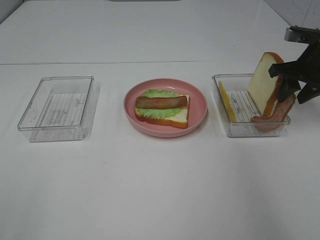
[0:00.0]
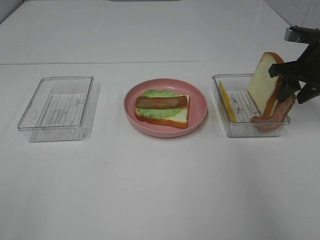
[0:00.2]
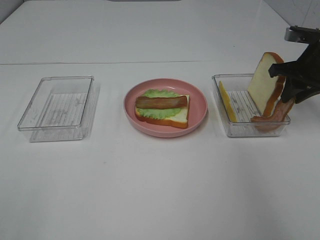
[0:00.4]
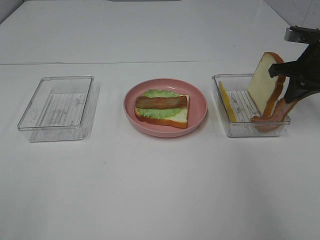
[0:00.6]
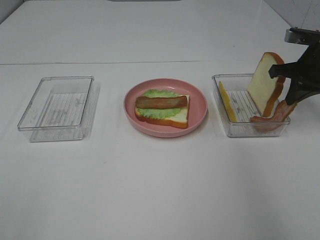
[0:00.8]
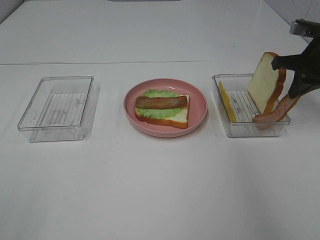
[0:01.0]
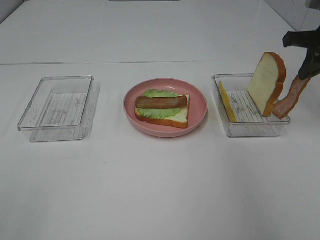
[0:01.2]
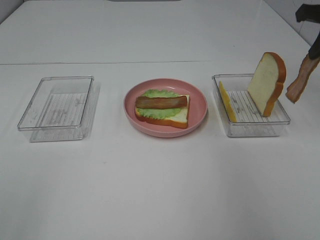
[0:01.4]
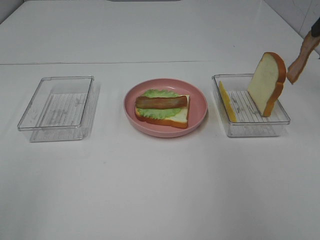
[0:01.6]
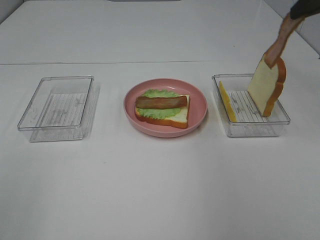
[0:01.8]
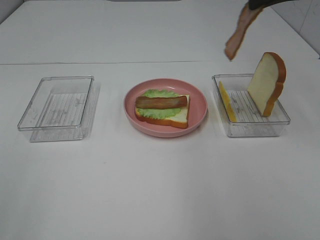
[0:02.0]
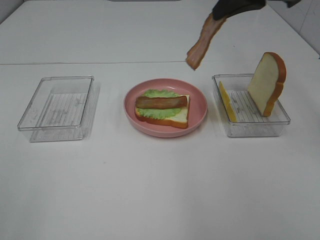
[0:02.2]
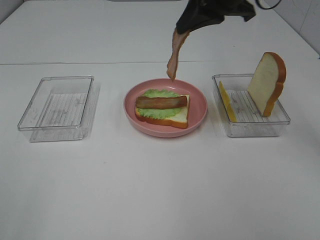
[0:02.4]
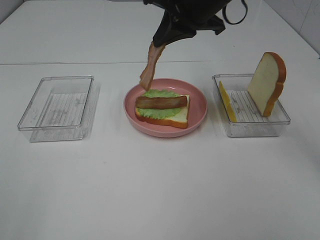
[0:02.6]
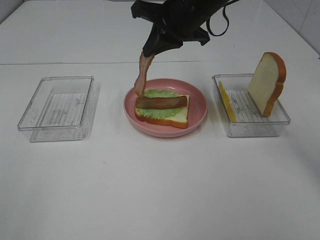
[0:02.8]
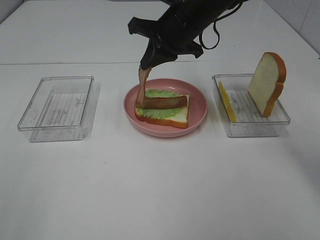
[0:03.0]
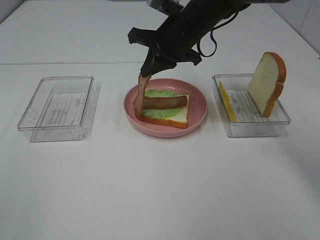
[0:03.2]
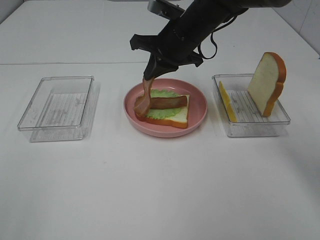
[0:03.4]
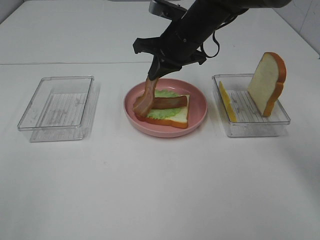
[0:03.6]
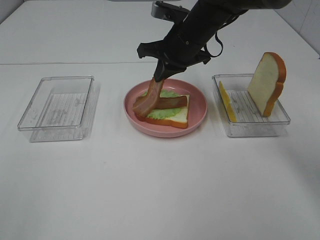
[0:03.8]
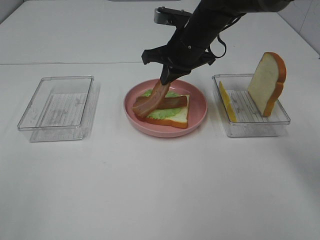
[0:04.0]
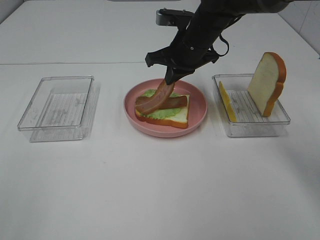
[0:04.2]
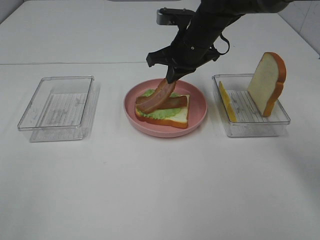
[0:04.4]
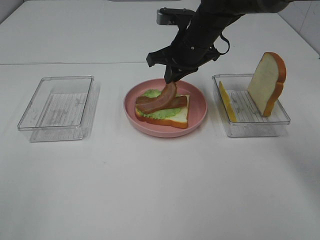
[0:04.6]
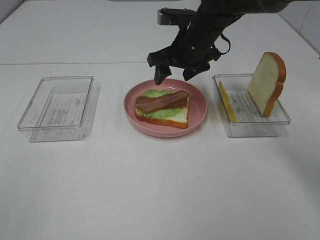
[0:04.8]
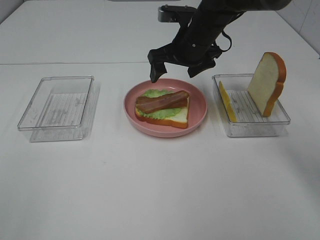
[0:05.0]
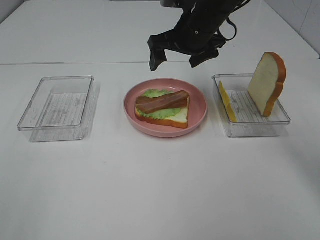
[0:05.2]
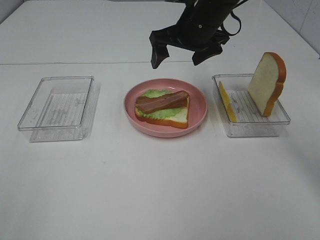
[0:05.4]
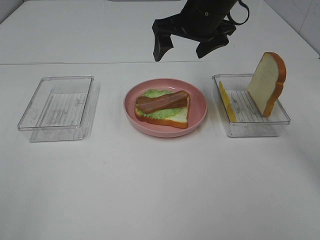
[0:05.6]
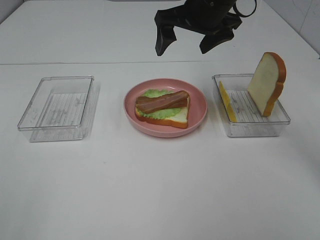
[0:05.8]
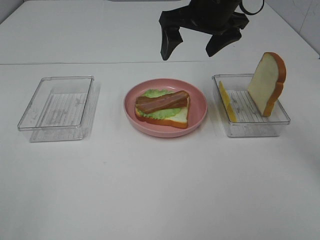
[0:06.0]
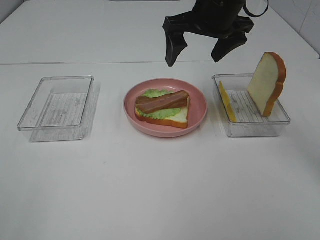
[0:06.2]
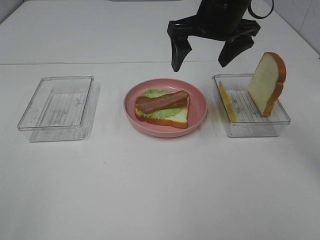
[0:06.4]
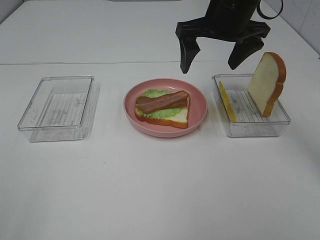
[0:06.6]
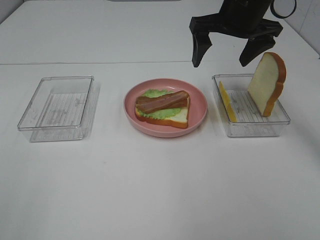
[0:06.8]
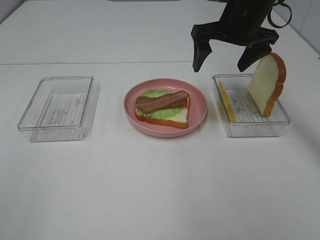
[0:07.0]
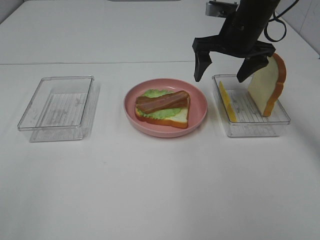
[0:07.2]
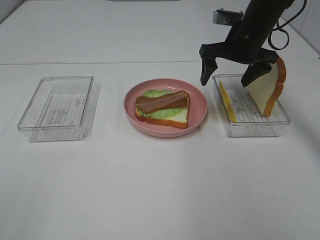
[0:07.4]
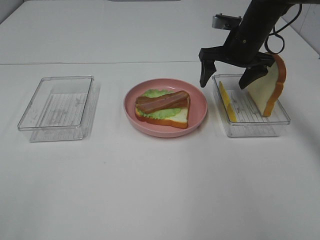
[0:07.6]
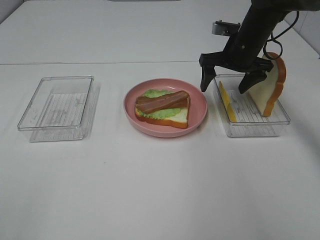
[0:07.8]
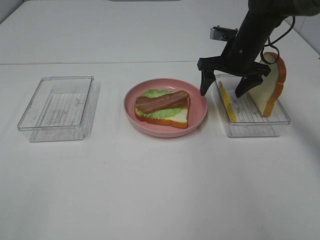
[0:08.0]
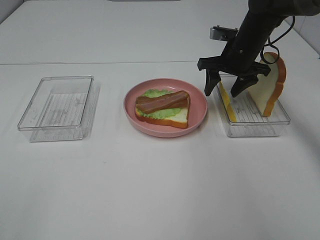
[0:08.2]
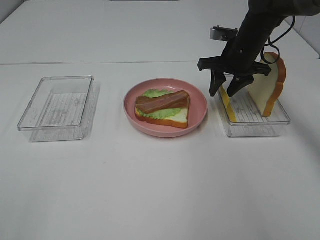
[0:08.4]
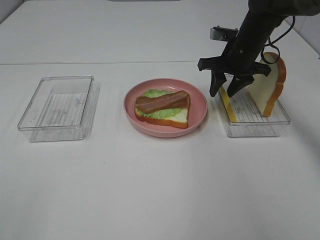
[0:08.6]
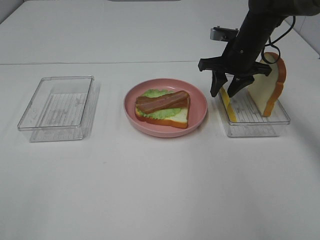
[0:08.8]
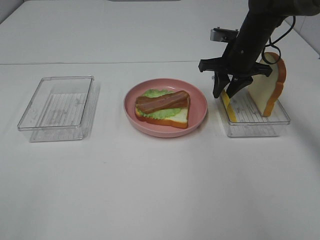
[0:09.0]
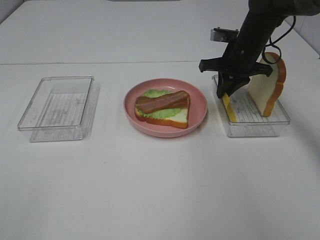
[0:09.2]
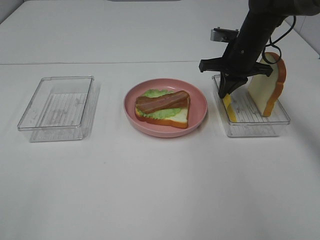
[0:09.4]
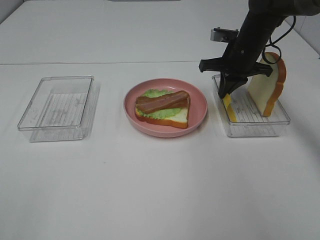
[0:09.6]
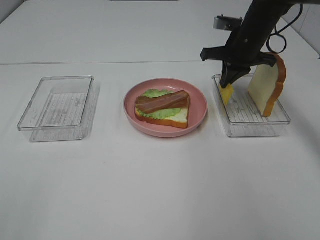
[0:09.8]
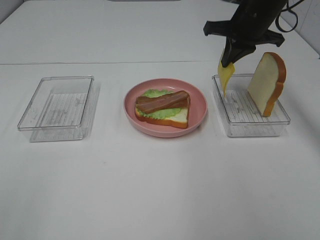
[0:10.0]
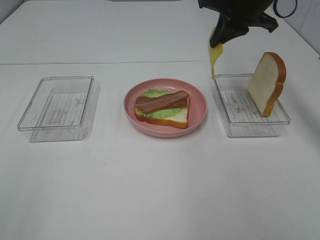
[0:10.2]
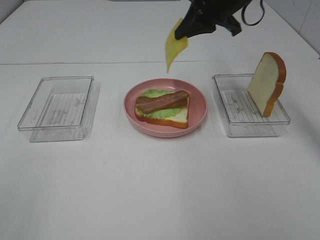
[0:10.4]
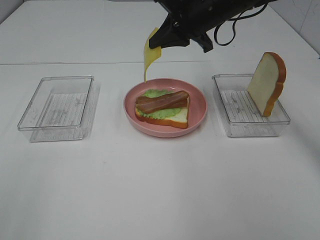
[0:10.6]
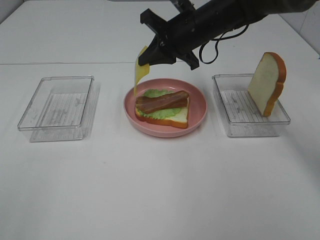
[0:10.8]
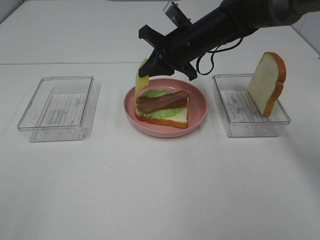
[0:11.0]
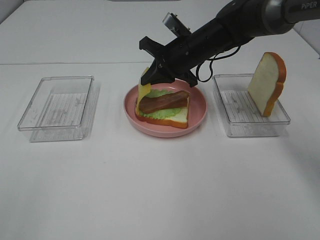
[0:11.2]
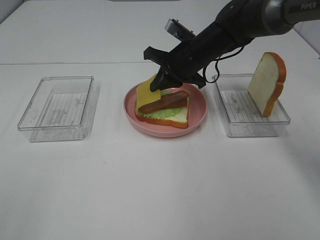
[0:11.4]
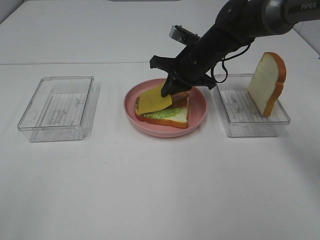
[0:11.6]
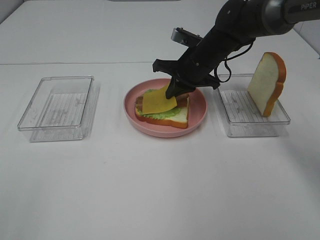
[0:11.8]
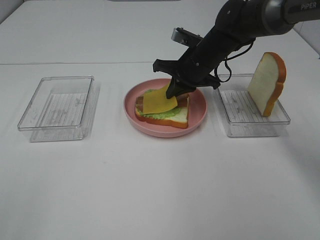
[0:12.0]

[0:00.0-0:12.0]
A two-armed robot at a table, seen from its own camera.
Task of the whole recording: Make sandwiches.
Step, 0:01.0 to 0:04.8: Right hand:place bacon on bacon.
Step, 0:05.0 to 0:09.6: Right hand:grab the cheese slice.
0:00.0 to 0:01.6: The right gripper moves upward and backward, roughly 15 cm, and closes.
0:01.6 to 0:03.0: The right gripper moves to the left and downward, roughly 25 cm.
0:03.0 to 0:04.4: The grippers move only a little.
0:04.4 to 0:06.0: The right gripper moves upward, roughly 10 cm, and opens up.
0:06.0 to 0:07.6: The right gripper travels downward, to the right and forward by approximately 15 cm.
0:07.6 to 0:09.0: The right gripper closes up.
0:09.0 to 0:10.4: The right gripper moves upward and to the left, roughly 10 cm, and closes its fingers.
0:10.4 to 0:12.0: The right gripper is displaced downward by about 15 cm.

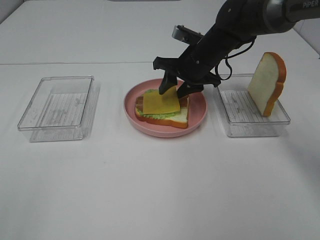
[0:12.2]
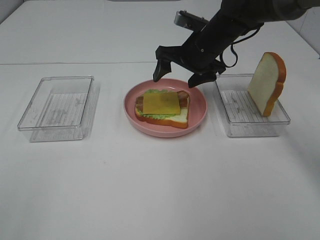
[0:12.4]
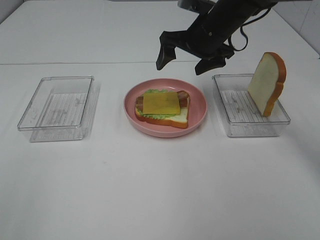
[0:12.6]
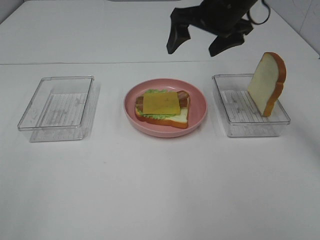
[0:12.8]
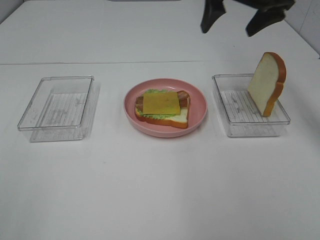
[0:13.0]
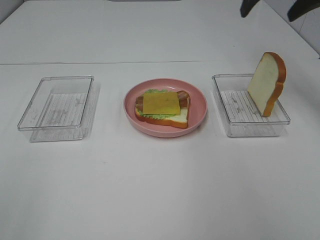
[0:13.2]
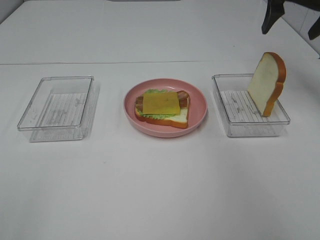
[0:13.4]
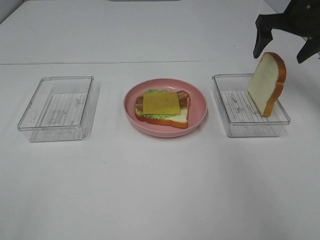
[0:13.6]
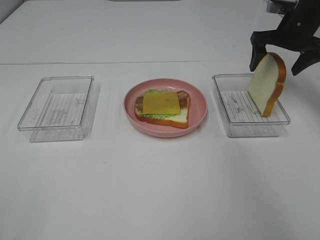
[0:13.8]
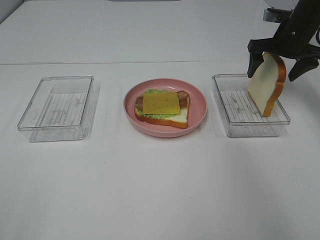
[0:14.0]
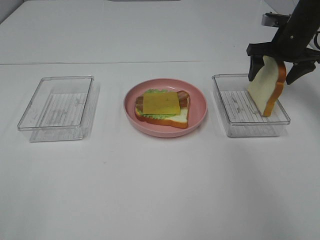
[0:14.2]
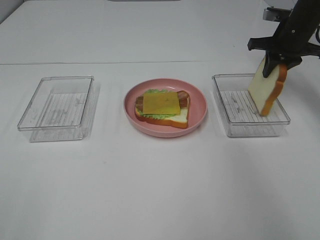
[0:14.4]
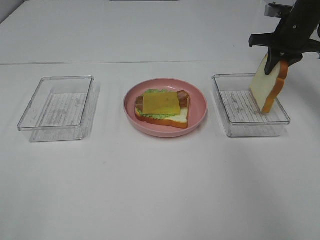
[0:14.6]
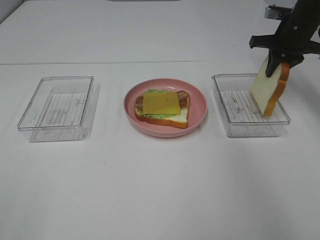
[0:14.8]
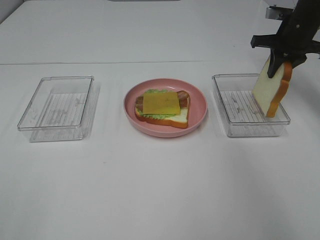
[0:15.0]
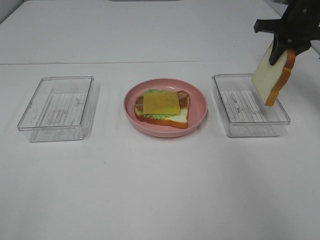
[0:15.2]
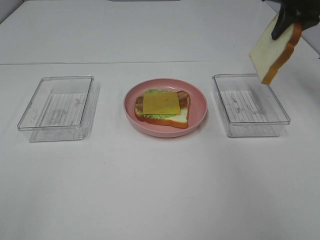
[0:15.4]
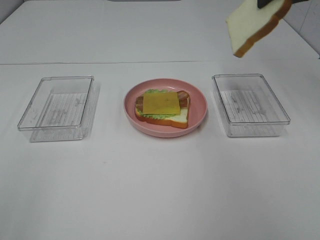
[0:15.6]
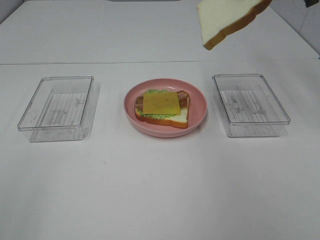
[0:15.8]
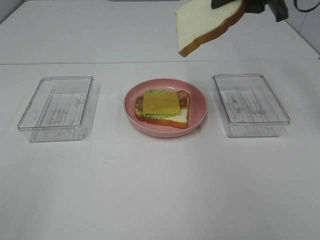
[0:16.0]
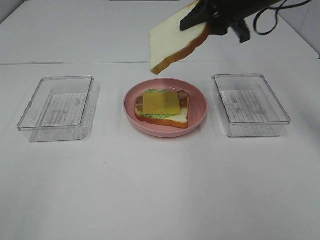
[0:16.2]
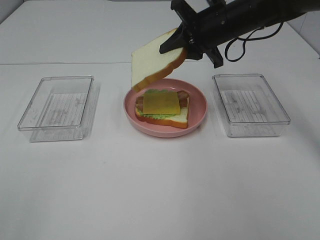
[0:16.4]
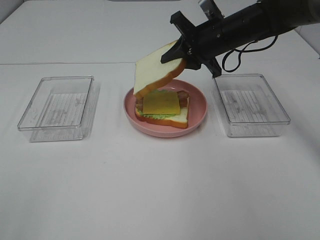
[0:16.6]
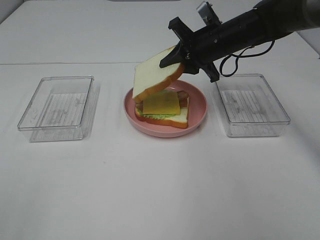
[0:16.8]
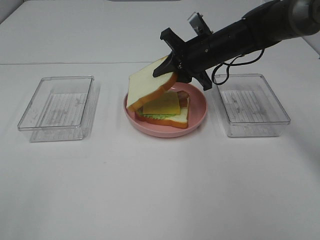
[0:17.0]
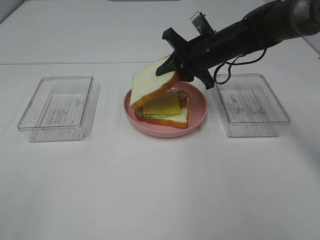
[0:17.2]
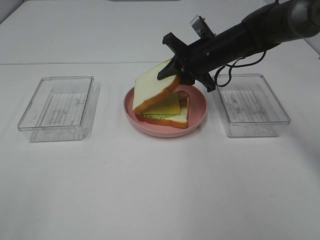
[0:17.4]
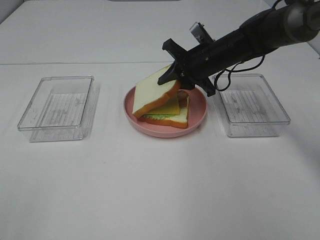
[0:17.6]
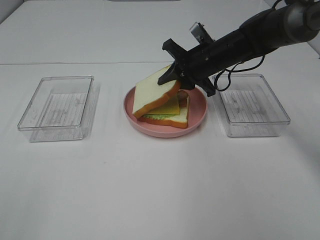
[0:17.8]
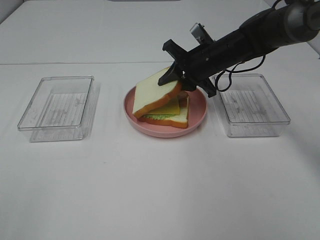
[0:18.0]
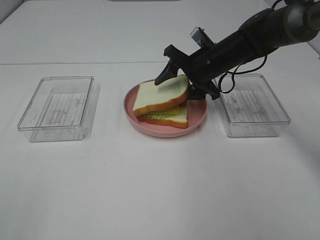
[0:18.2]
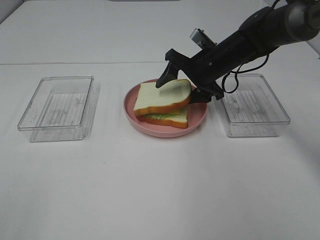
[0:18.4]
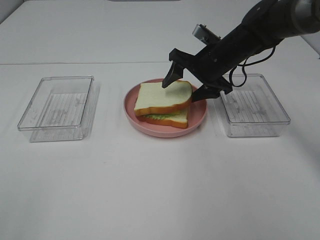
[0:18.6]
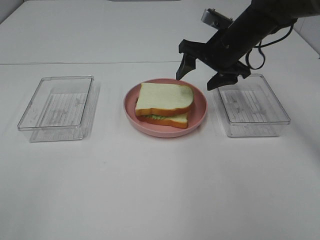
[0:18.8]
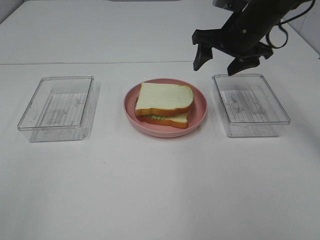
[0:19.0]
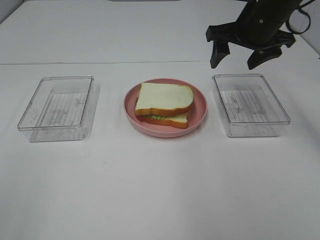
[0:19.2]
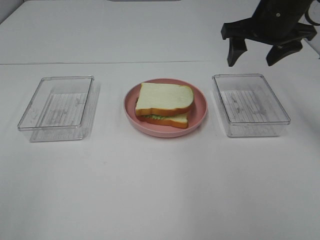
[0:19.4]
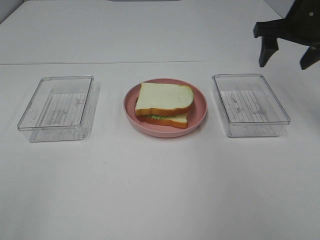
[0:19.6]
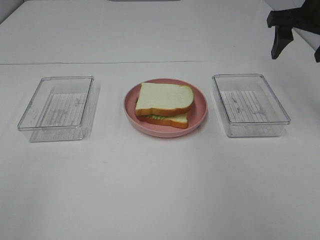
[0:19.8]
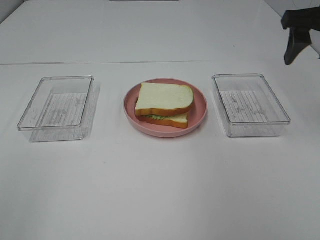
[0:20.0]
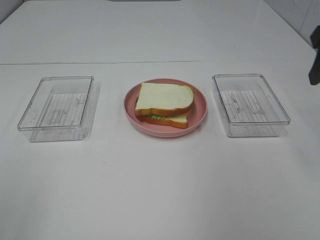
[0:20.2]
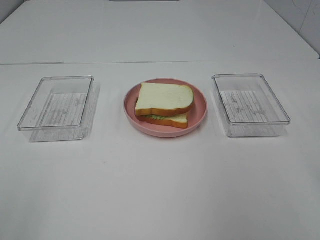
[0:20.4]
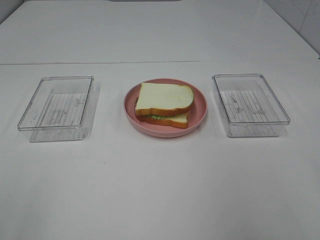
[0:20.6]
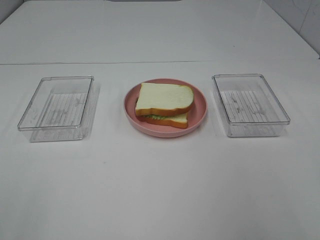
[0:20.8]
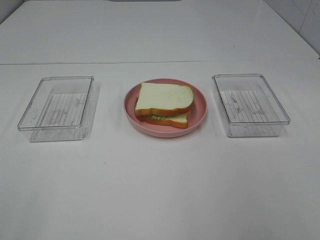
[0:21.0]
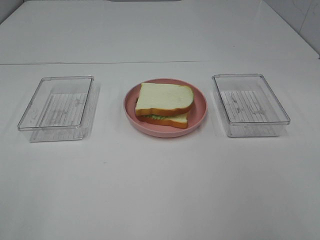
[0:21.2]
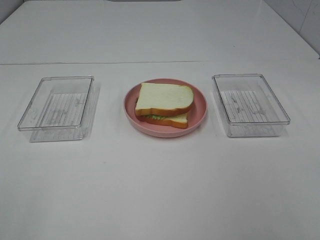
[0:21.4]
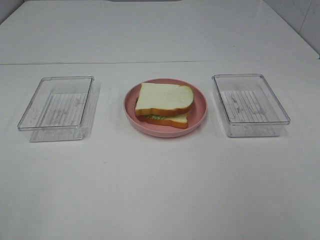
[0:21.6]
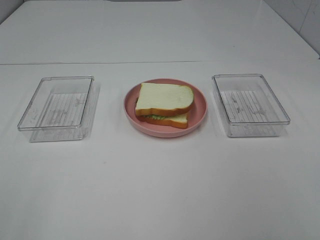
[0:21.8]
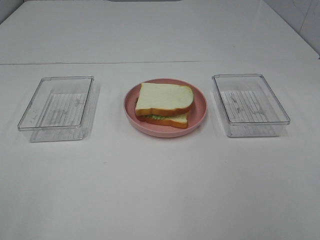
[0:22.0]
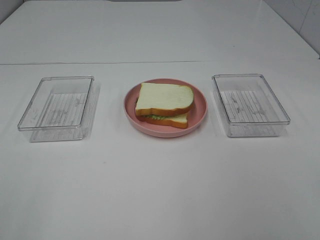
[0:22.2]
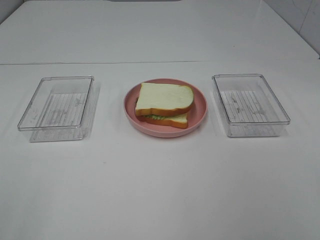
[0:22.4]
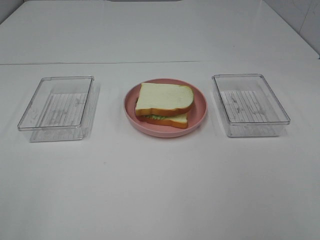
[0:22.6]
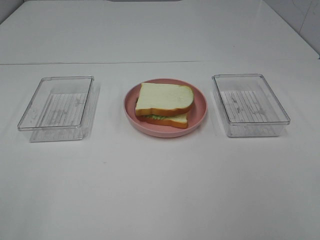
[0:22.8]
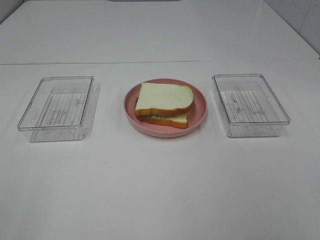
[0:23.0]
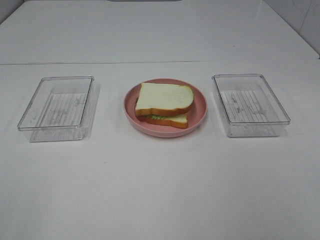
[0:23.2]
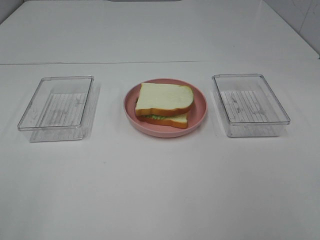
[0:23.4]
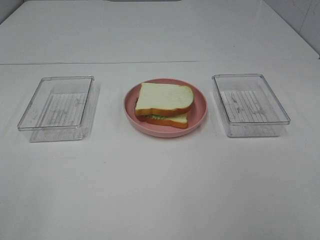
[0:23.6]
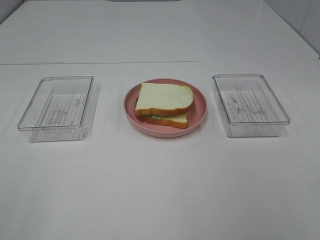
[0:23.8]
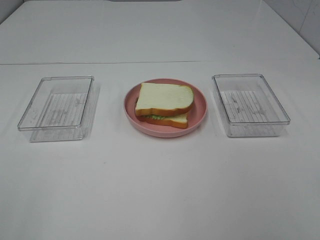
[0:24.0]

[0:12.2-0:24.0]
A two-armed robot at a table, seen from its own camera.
Task of the whole recording: Make sandwiches.
Step, 0:12.6 to 0:14.6: Right hand:grab the bread slice.
Step, 0:14.8 to 0:18.6: Right hand:place the bread slice on the cheese slice.
0:12.2 to 0:13.6: The right gripper is displaced to the right and upward by about 20 cm, and opens.
0:13.6 to 0:15.2: The right gripper closes its fingers.
0:15.2 to 0:16.6: The right gripper moves to the left and downward, approximately 15 cm.
0:16.6 to 0:18.2: The right gripper travels downward by approximately 5 cm, and opens its fingers.
0:18.2 to 0:19.6: The right gripper moves to the right and upward, approximately 20 cm.
0:19.6 to 0:21.0: The right gripper goes roughly 35 cm backward.
0:22.6 to 0:24.0: Both grippers stay about where they are.
